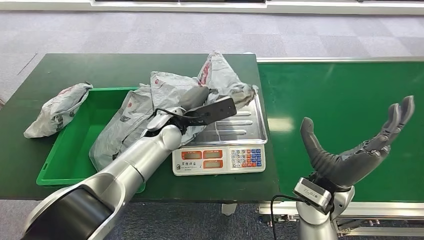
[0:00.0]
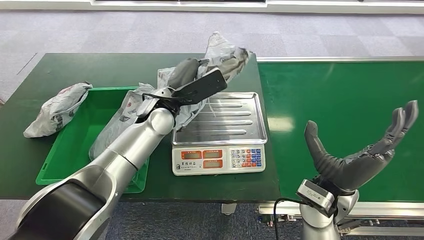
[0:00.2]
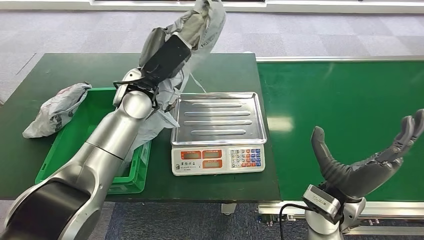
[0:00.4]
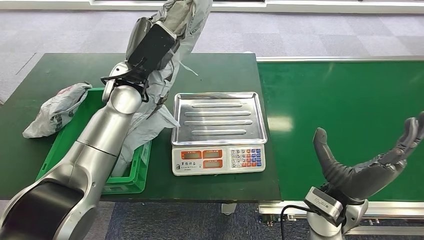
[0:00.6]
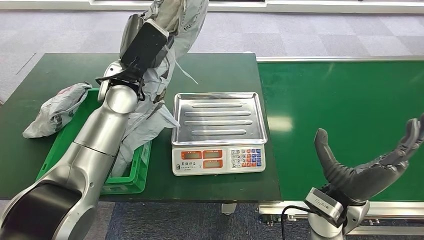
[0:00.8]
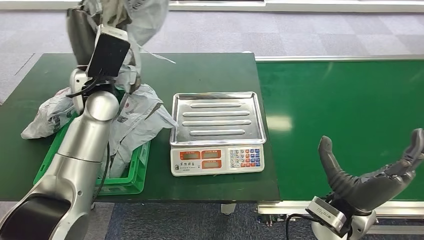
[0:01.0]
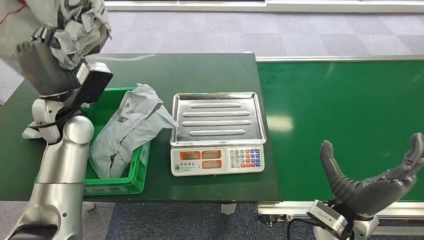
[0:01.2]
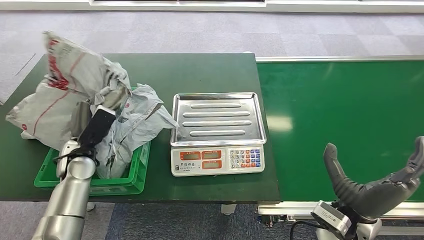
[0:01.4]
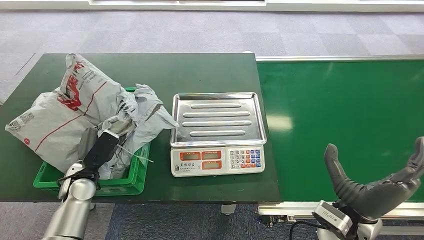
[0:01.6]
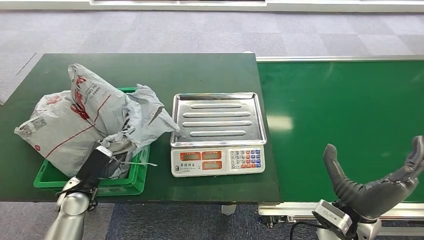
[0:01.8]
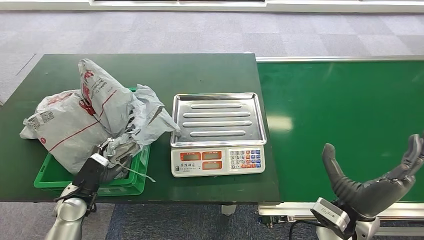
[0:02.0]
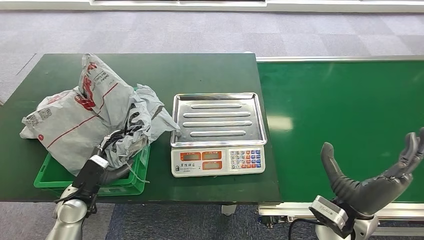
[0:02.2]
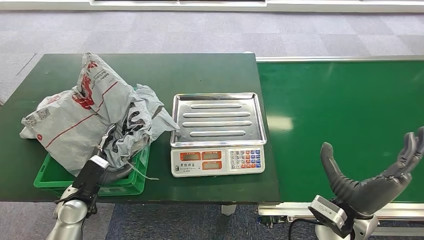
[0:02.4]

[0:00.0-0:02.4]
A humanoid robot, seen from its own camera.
Step, 0:00.8 to 0:02.4: Place the package into the parcel locker.

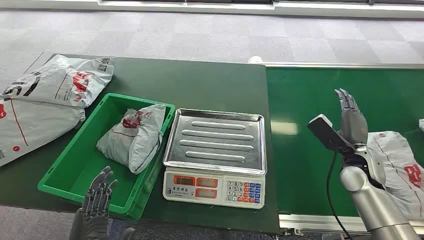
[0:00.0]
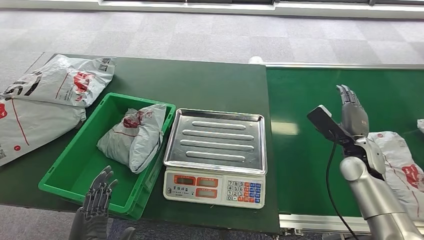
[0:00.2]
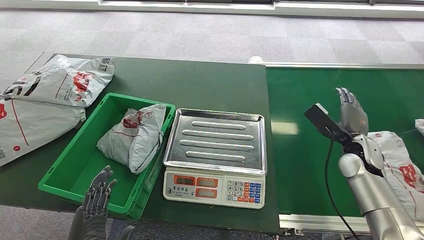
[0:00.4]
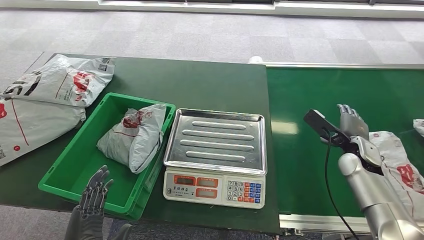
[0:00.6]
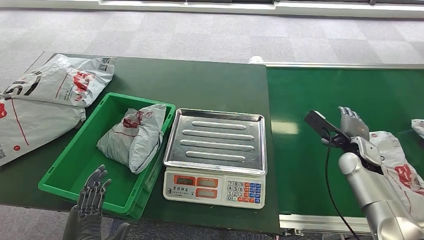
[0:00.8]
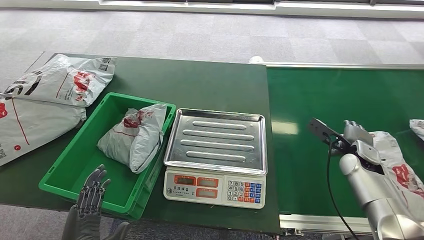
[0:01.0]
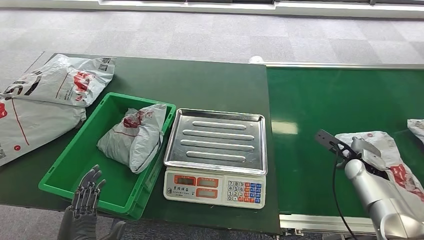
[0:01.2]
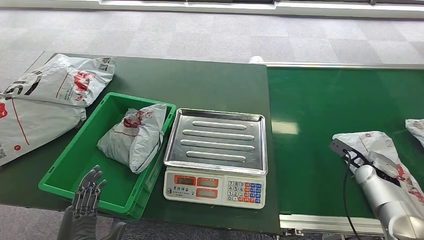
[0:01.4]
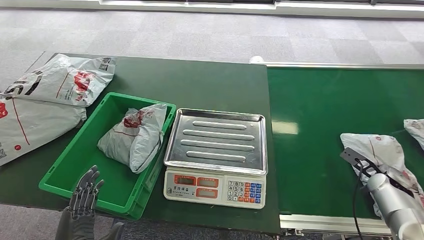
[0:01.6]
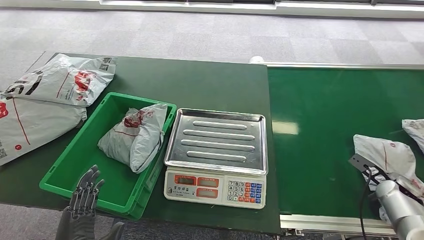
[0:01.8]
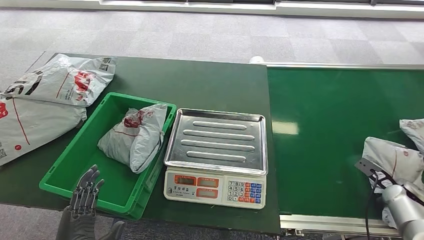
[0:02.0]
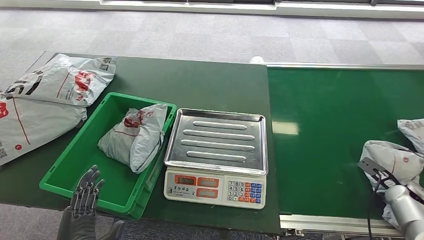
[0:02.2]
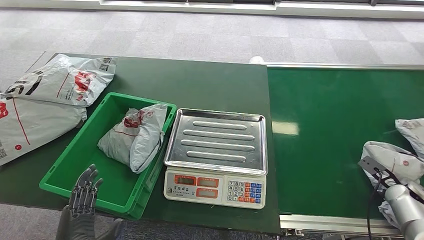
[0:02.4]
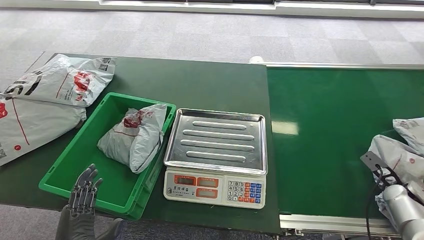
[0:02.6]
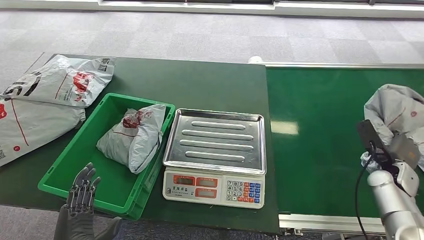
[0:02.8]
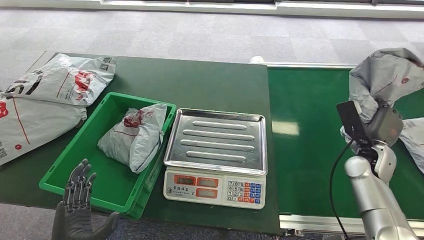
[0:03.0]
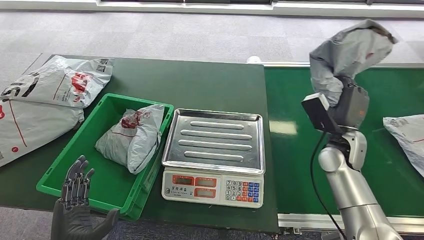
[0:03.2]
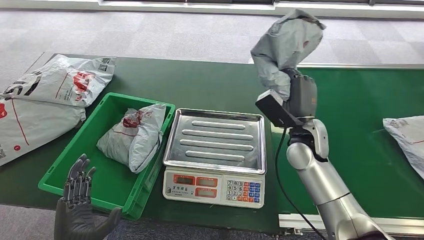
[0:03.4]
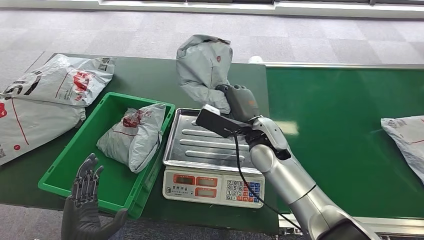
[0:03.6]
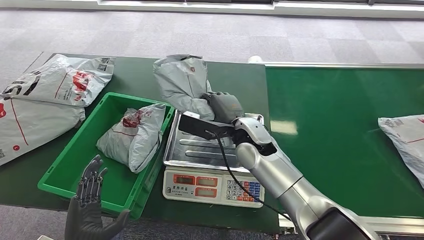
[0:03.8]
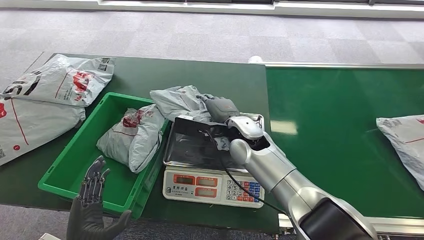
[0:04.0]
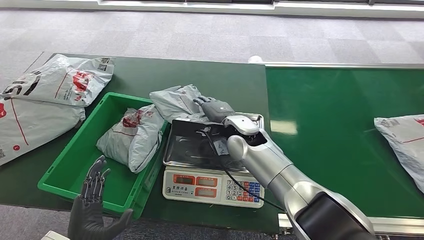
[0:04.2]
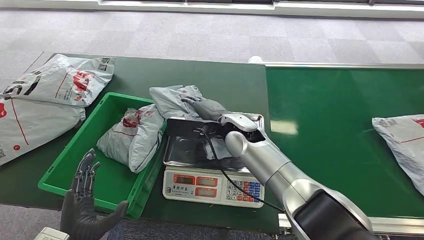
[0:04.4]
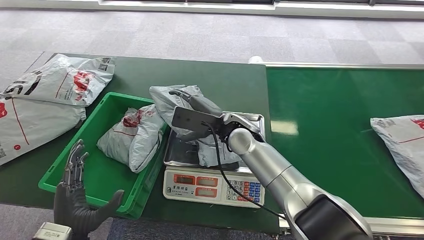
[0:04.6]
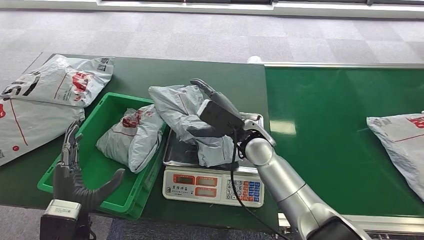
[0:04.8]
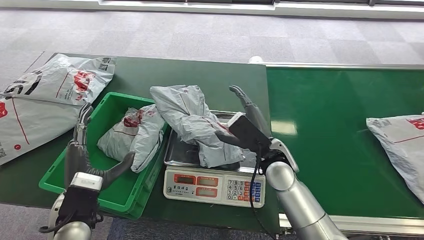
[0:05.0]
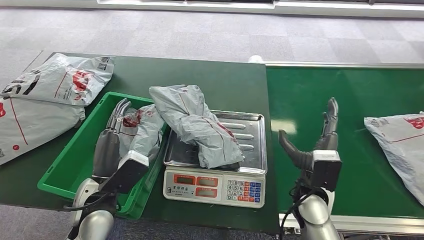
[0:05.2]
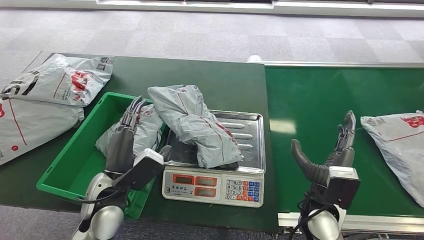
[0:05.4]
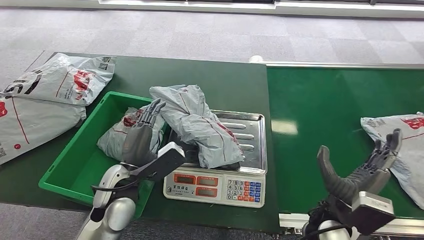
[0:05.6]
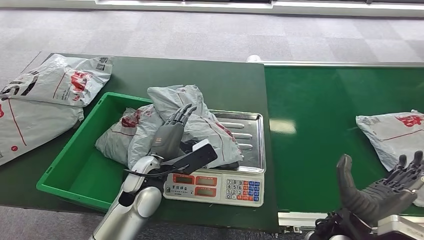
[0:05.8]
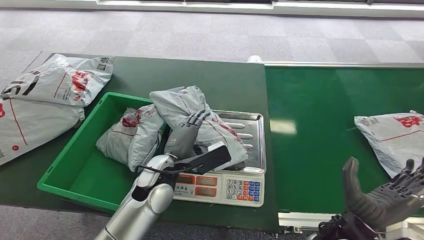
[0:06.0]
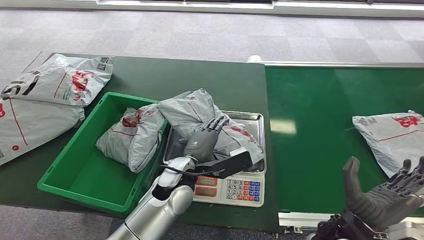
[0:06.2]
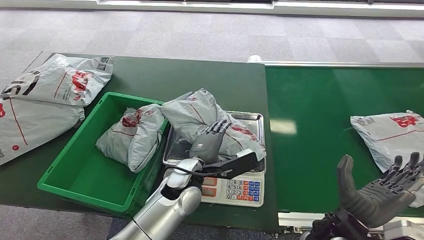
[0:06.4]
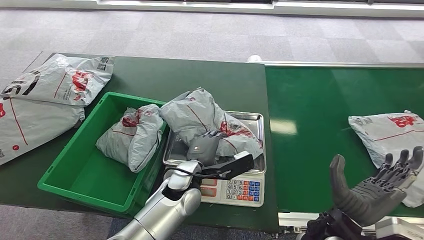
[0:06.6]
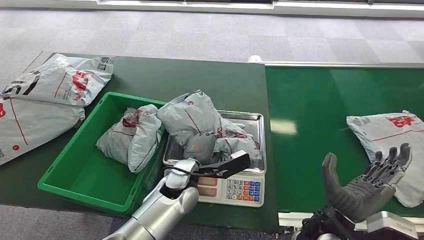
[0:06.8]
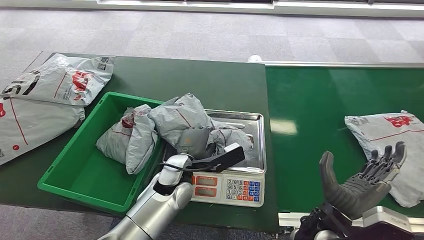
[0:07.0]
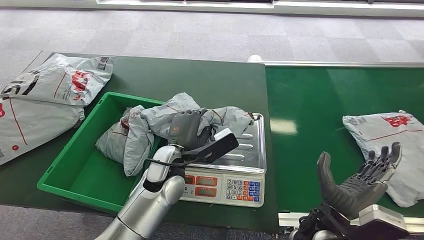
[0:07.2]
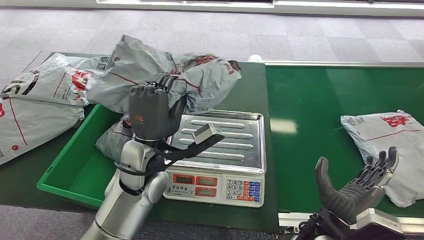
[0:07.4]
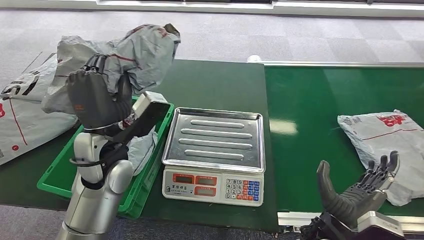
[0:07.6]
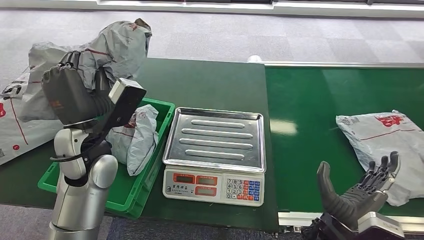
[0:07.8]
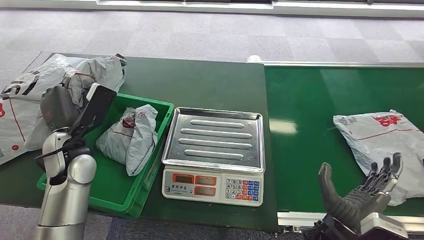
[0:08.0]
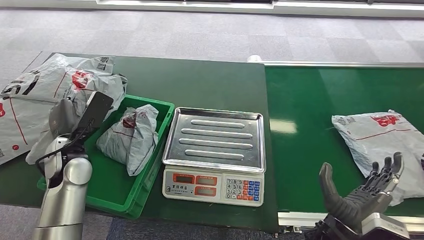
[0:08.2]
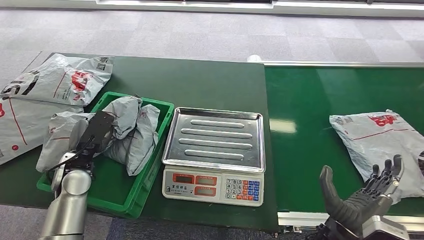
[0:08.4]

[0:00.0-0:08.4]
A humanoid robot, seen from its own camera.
Step, 0:00.0 to 0:03.2: Pick up the package from the conveyor belt.
Step, 0:03.4 to 0:05.0: Place the package onto the inbound machine.
Step, 0:05.2 to 0:07.6: Pick up the package from the inbound machine.
Step, 0:07.8 to 0:08.4: Place the package into the parcel locker.

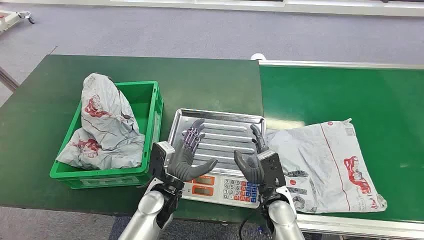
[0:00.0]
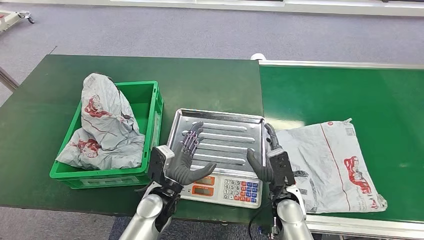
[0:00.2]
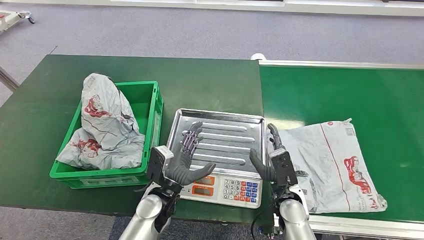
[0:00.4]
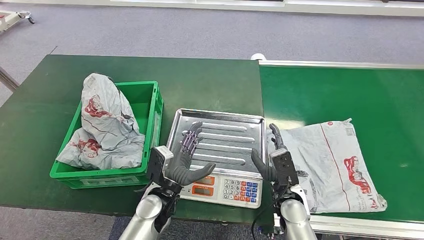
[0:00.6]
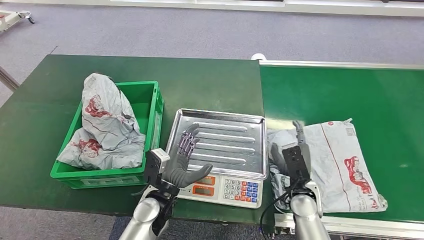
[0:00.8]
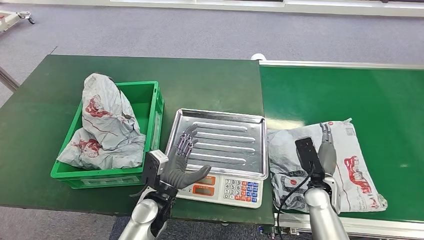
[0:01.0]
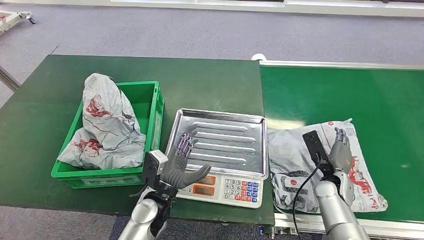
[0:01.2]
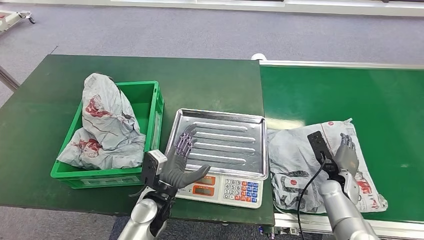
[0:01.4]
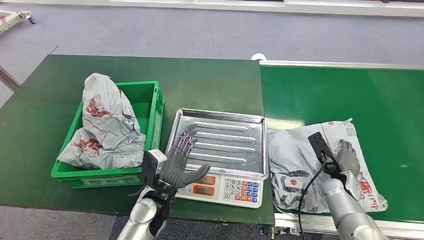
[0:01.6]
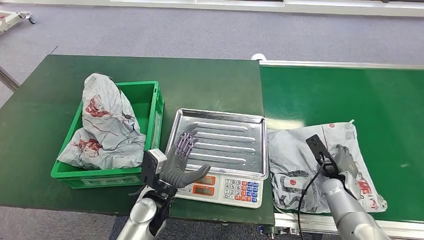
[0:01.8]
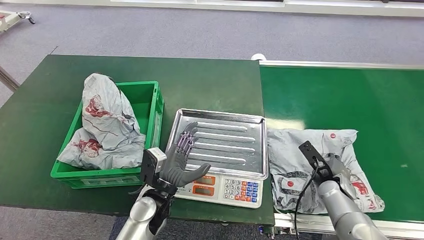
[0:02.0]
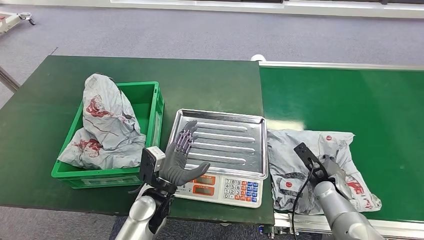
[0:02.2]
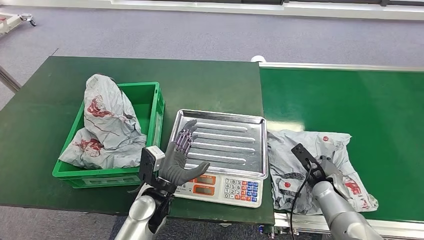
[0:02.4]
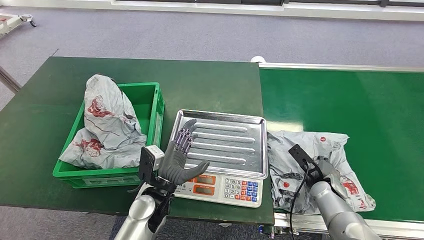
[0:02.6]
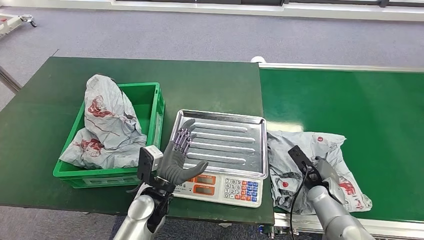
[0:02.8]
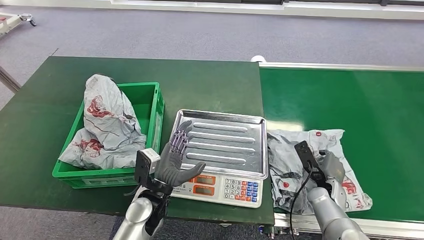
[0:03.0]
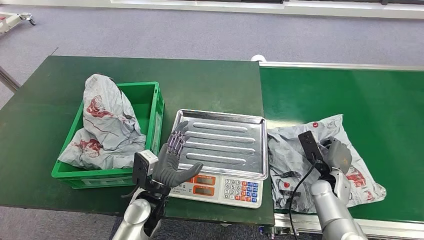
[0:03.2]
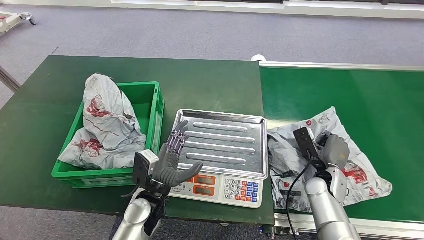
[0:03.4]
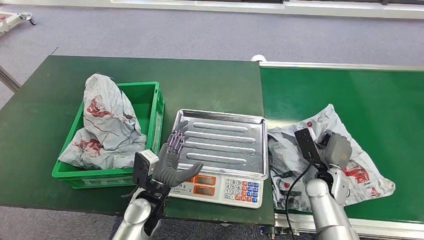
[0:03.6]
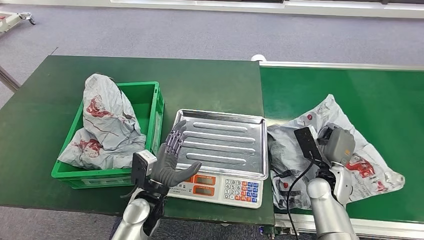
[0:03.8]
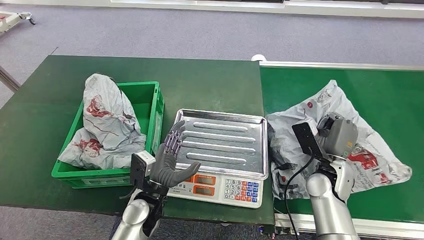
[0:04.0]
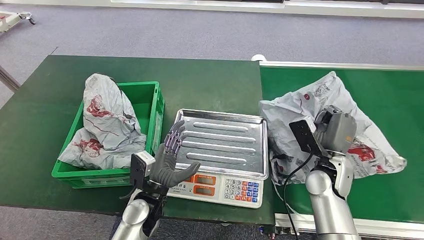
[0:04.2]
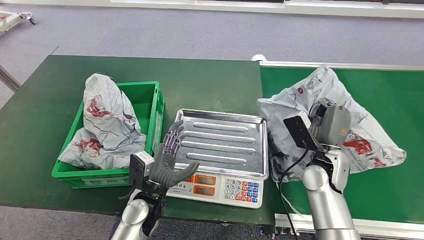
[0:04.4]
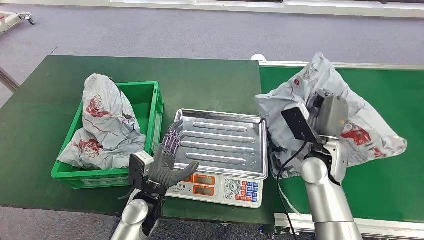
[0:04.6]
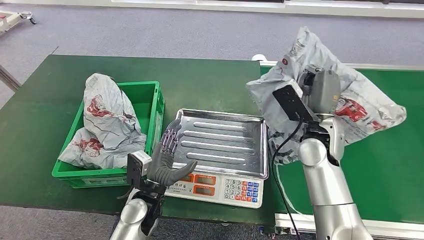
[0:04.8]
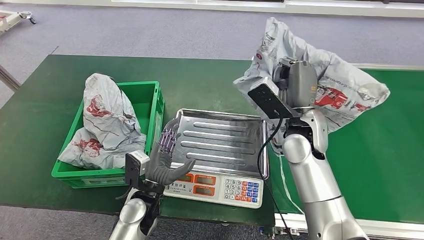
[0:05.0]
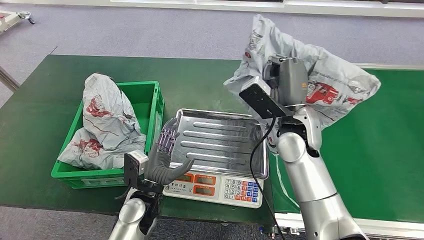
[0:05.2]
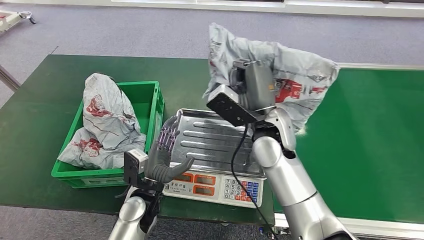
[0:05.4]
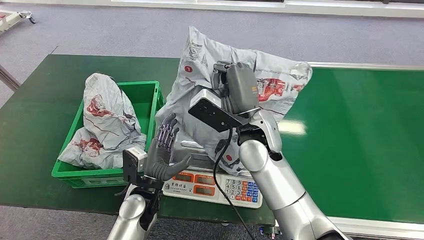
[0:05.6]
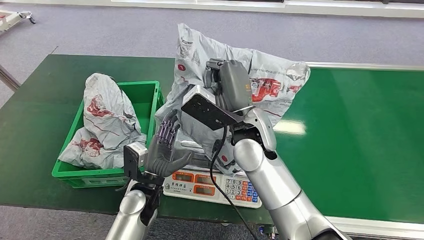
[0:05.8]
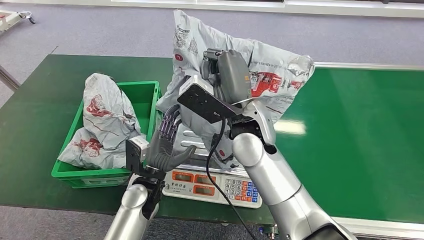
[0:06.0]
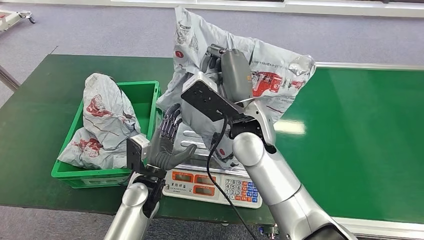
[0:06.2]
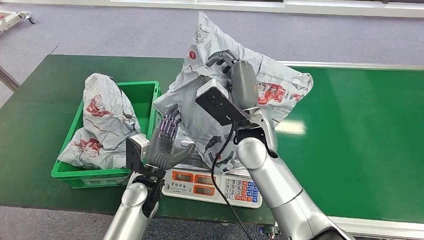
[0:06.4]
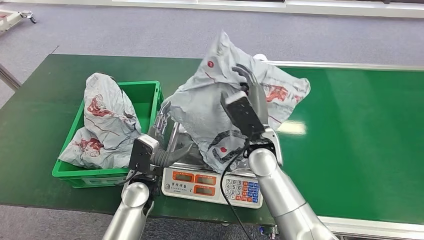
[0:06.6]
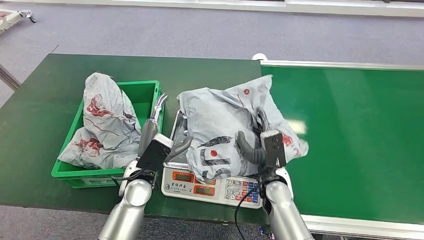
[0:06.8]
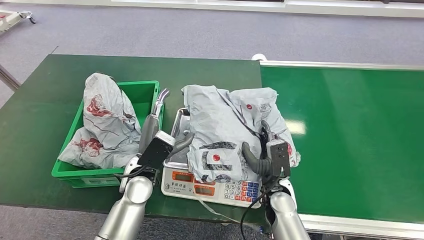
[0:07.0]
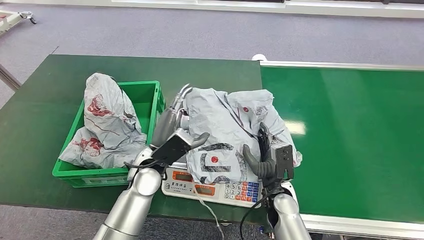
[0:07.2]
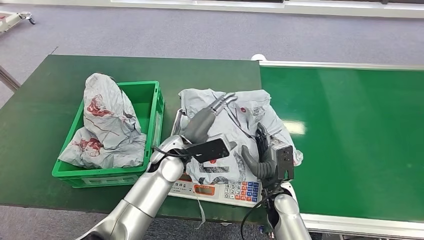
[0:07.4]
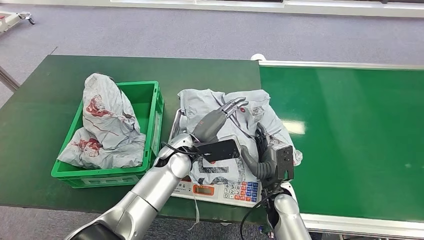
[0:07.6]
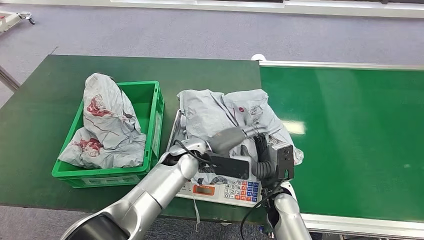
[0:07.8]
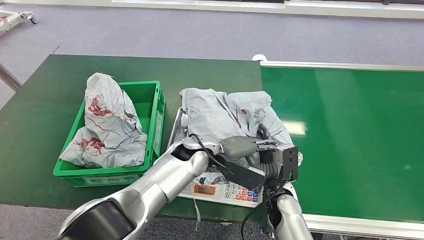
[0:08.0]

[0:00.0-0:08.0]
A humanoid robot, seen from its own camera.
Step, 0:00.0 to 0:04.2: Pick up the package from the conveyor belt.
Step, 0:04.4 to 0:07.0: Place the package onto the inbound machine.
